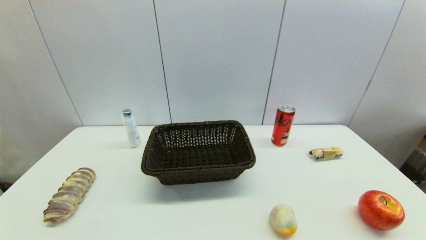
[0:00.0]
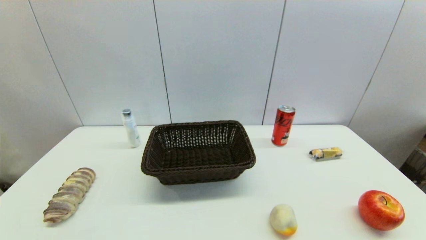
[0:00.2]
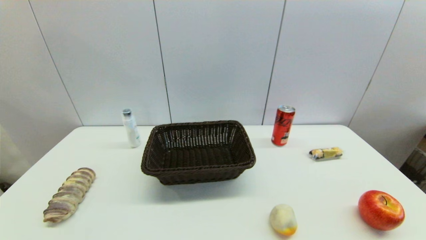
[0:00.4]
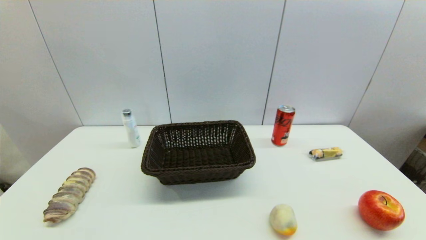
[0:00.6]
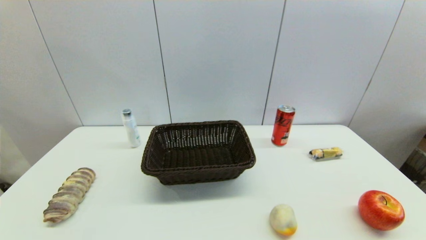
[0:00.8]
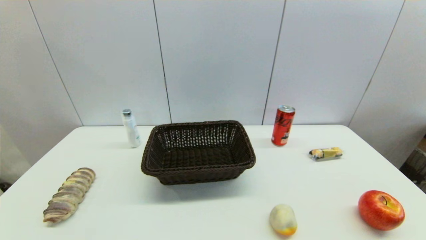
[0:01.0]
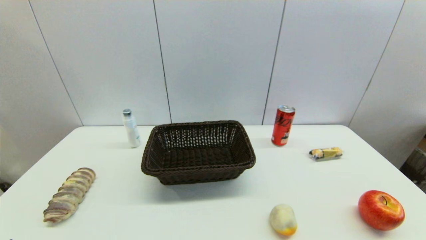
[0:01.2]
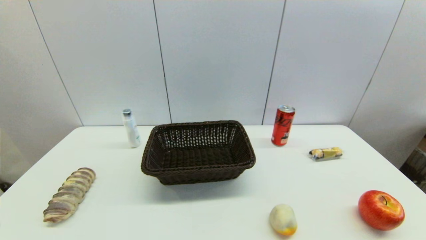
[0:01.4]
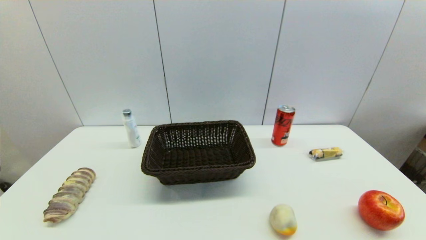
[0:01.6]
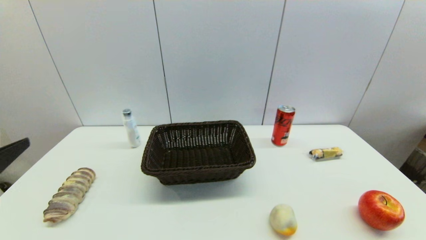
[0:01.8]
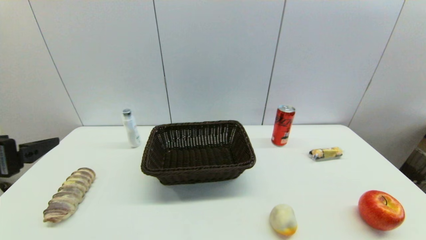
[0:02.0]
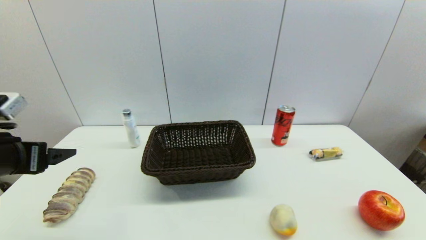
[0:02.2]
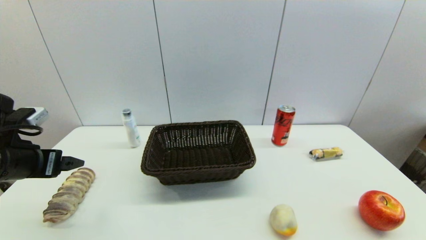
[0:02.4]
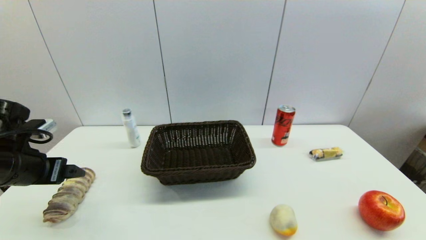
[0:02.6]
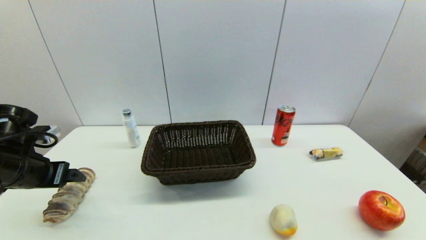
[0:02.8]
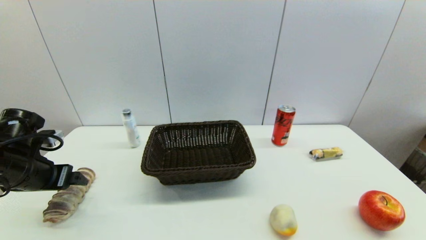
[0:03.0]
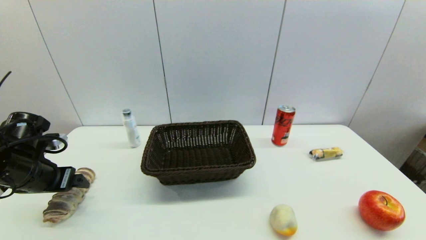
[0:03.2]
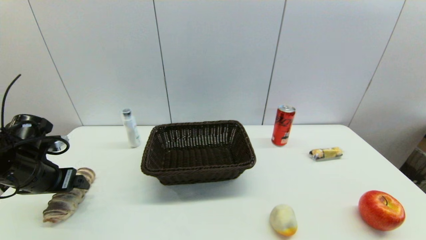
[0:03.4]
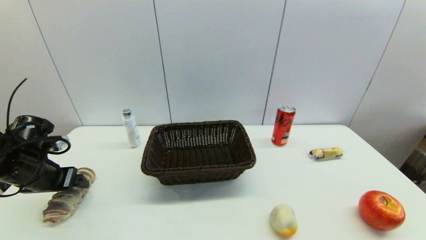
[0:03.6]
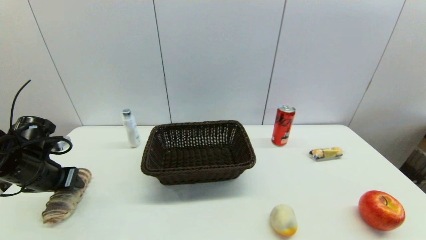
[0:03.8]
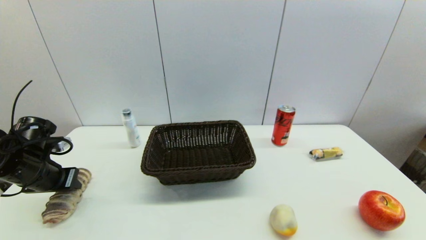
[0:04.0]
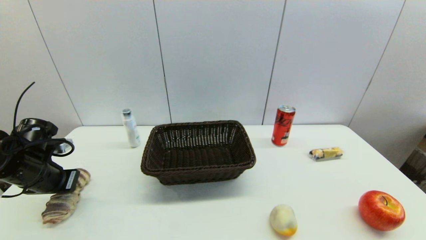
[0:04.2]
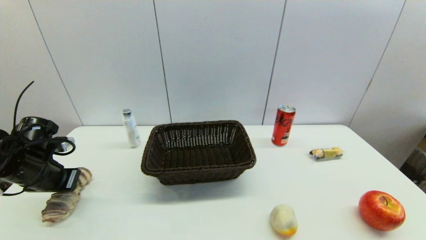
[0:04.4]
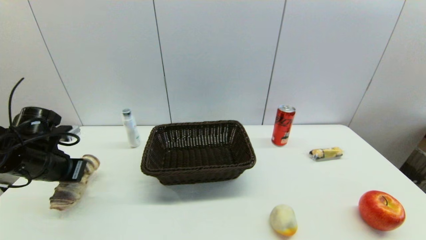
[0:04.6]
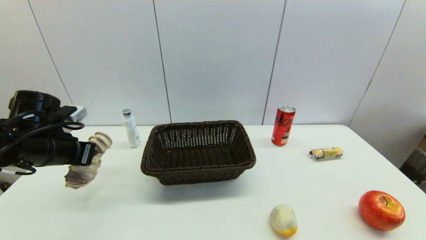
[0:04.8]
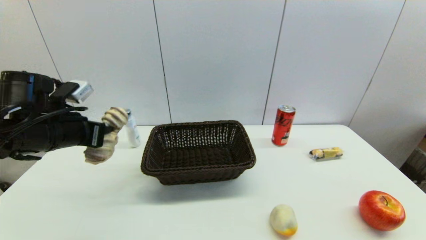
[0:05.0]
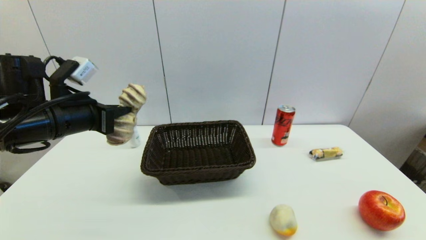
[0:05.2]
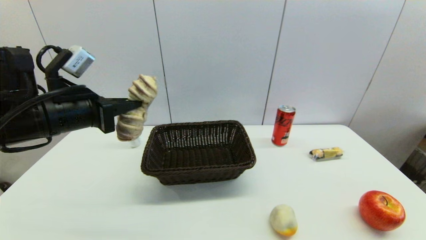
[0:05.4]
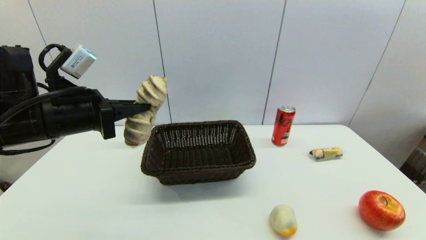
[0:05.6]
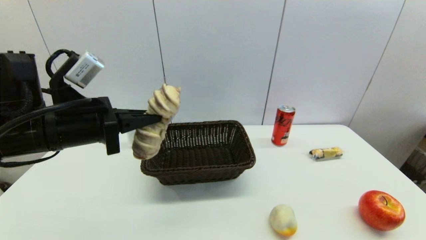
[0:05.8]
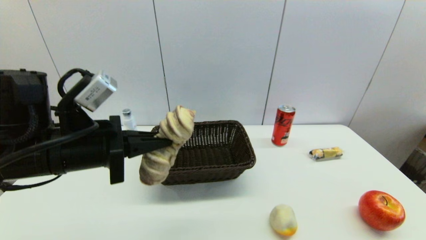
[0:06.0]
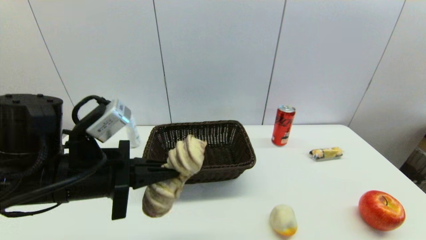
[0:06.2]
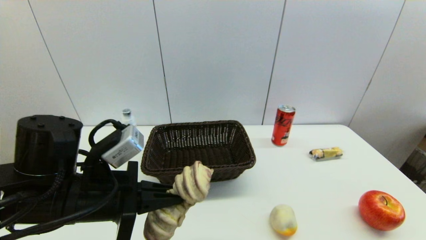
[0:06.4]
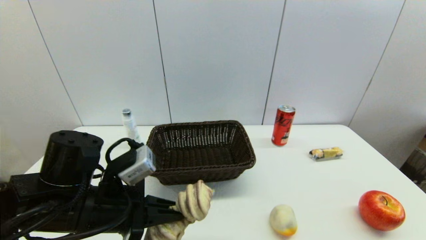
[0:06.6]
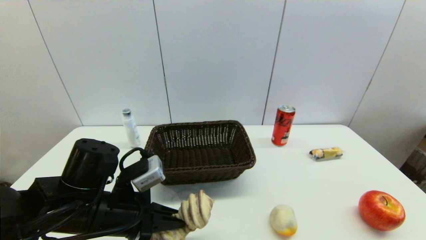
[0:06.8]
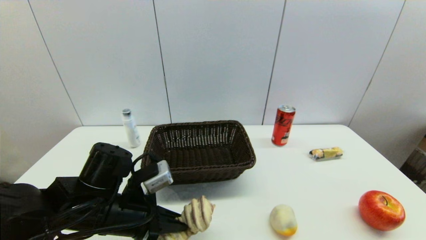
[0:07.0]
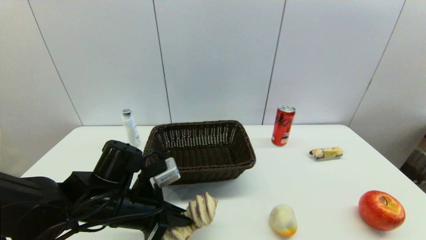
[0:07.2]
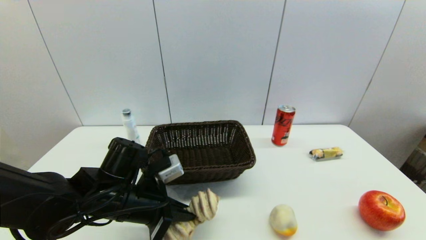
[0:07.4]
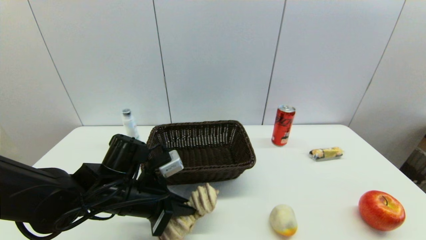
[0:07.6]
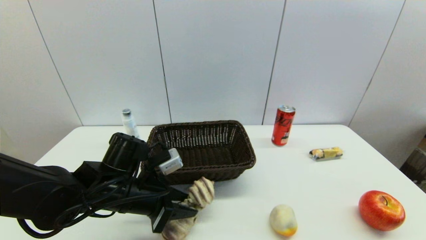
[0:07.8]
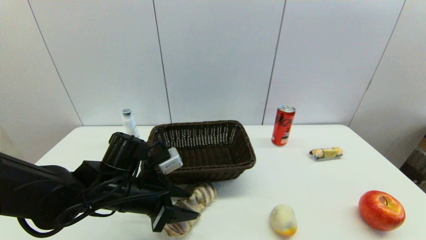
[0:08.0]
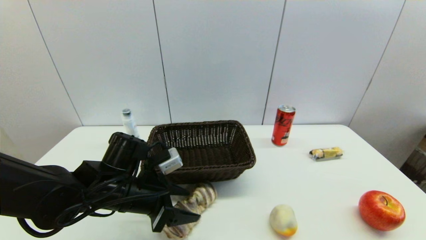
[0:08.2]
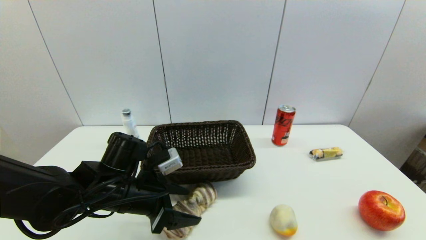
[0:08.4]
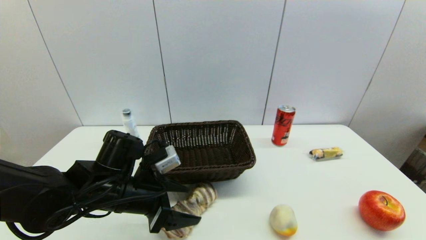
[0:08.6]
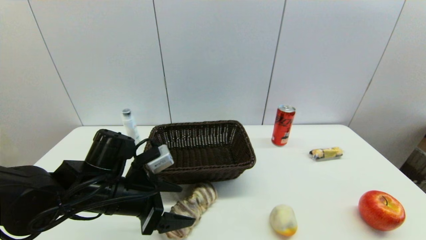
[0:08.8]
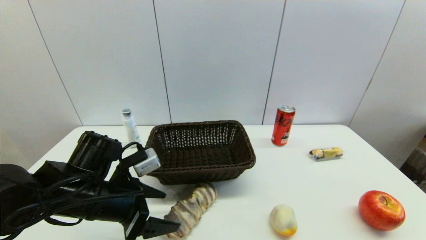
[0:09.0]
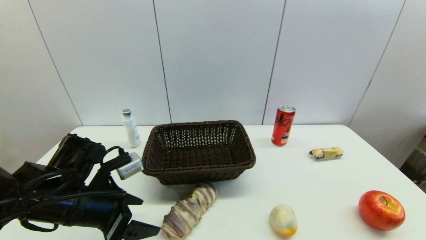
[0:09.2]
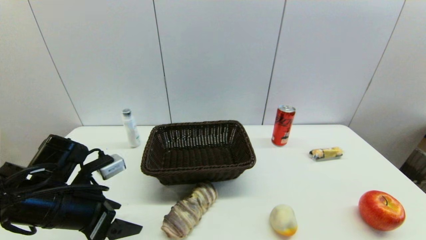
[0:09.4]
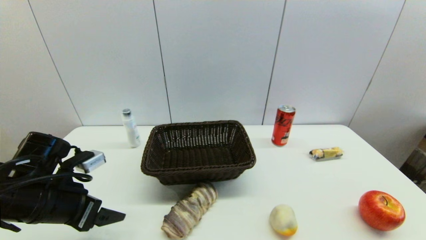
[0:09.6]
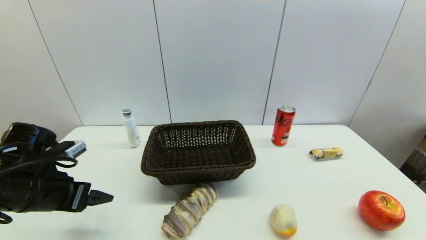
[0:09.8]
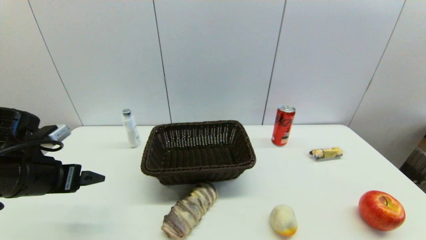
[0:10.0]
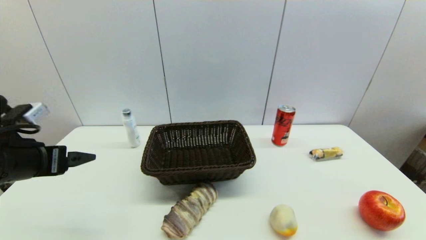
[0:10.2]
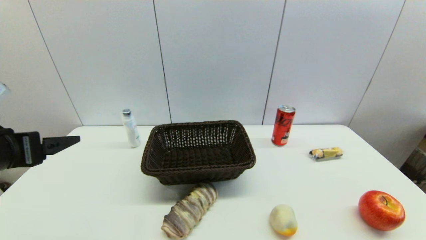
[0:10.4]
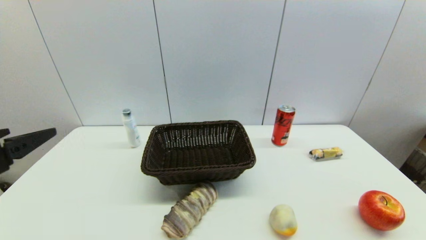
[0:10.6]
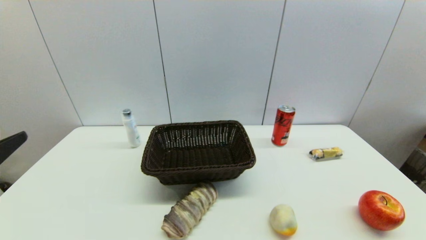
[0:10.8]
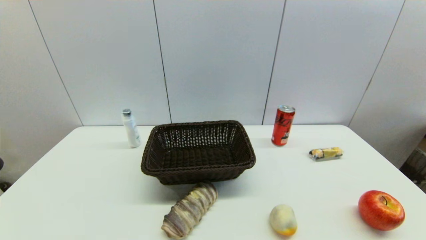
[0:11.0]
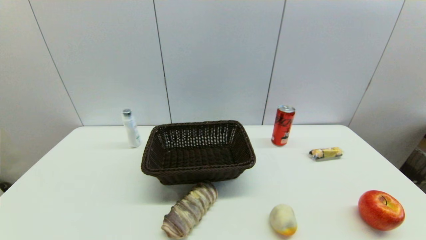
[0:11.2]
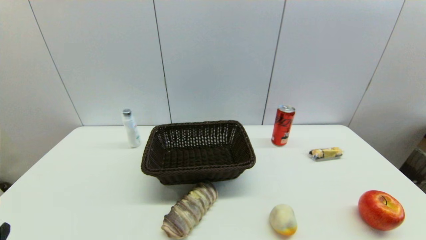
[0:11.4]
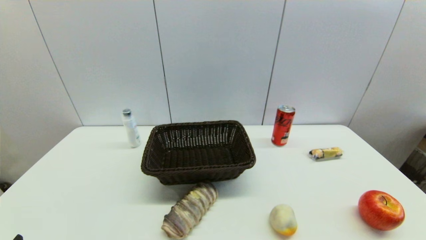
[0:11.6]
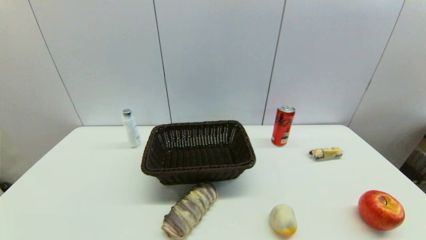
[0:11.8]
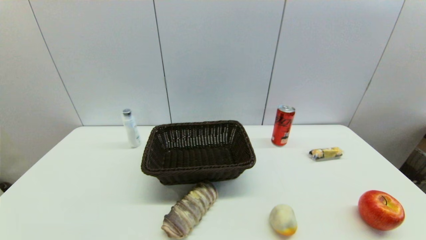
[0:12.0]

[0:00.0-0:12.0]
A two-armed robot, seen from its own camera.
Step, 0:01.8 to 0:04.4: Grasp the long bread with left gripper.
Step, 0:04.6 to 0:08.2: Place the long bread on the table with left gripper.
0:01.6 to 0:03.0: The left gripper moves forward and downward, about 20 cm.
0:03.0 to 0:04.4: The left gripper closes its fingers.
0:04.4 to 0:06.0: The left gripper moves to the right, upward and backward, roughly 20 cm.
0:06.0 to 0:07.6: The left gripper goes some 10 cm downward.
0:07.6 to 0:09.0: The left gripper ends up approximately 5 cm from where it was, and opens.
0:09.0 to 0:10.4: The left gripper shifts approximately 15 cm upward and to the left.
0:10.4 to 0:12.0: The left gripper travels downward and backward by approximately 25 cm.

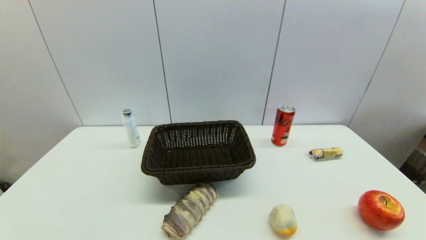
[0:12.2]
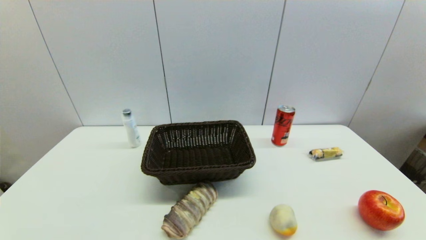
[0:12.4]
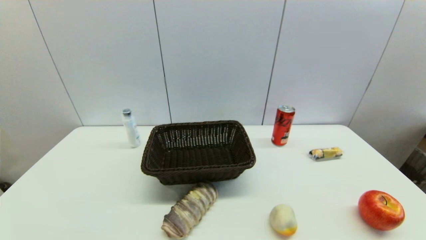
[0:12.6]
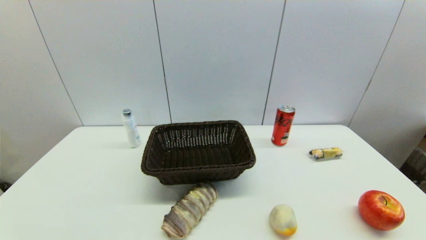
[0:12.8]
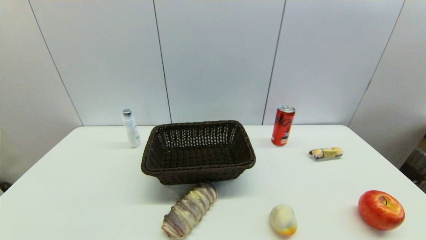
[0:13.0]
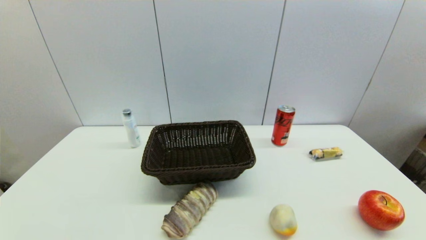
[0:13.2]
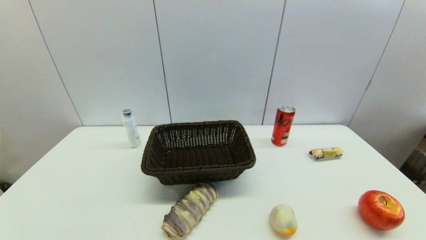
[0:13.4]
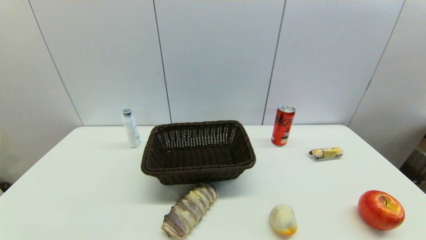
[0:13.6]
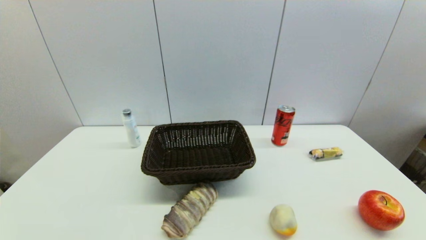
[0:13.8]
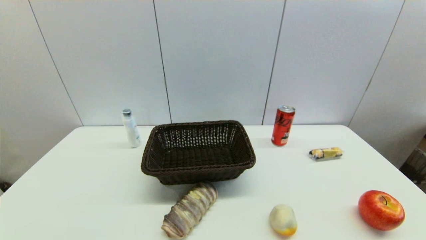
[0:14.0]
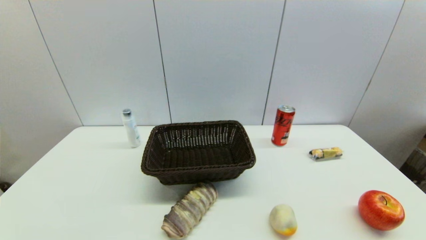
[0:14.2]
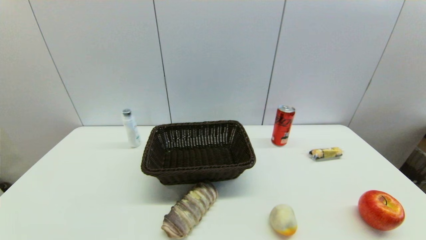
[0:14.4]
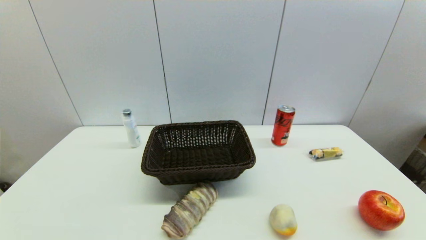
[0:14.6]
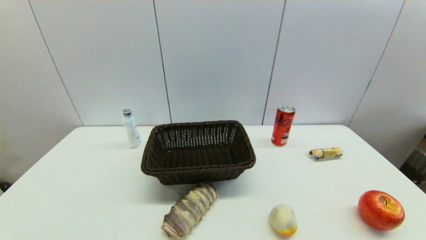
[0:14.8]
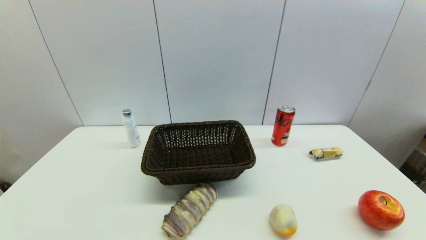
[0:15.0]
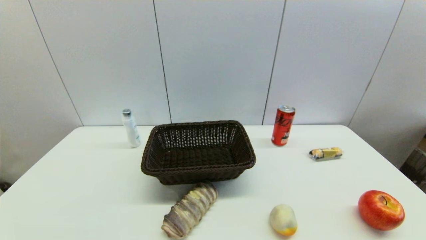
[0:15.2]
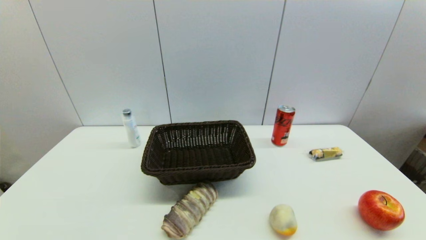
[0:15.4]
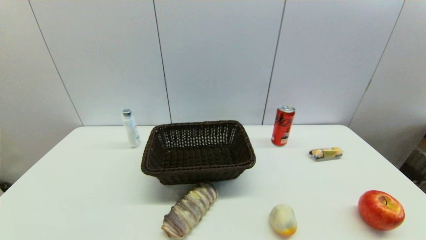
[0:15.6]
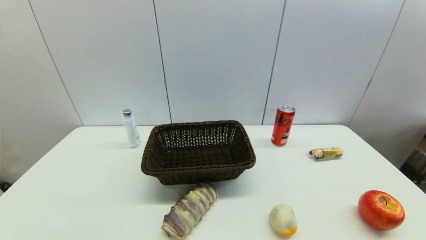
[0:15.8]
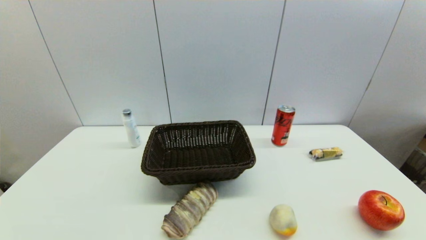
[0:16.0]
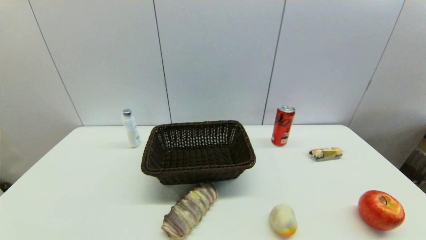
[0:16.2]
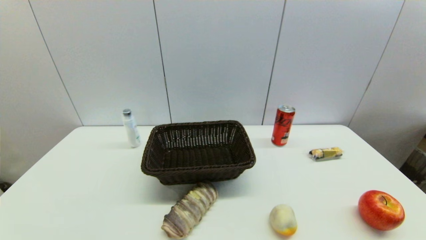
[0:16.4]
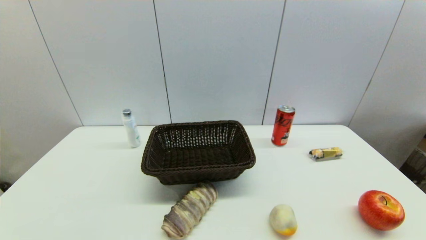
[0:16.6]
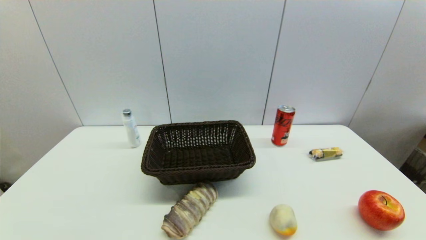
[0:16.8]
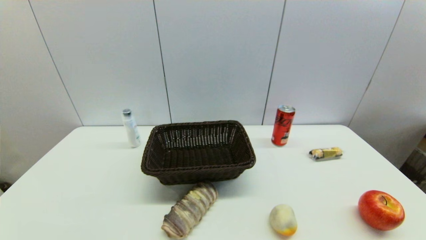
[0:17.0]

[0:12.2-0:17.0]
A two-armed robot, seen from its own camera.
0:12.2 to 0:17.0: The two grippers keep their place.
